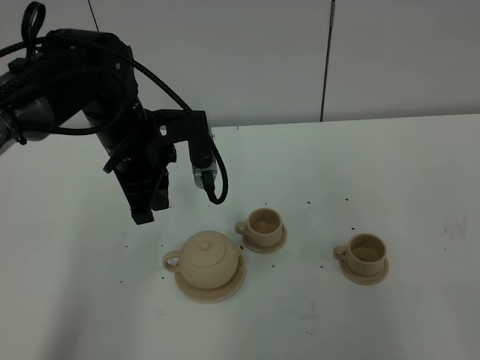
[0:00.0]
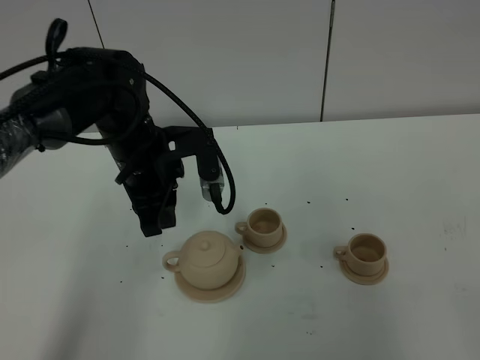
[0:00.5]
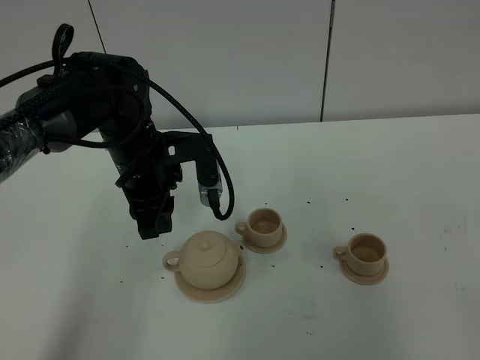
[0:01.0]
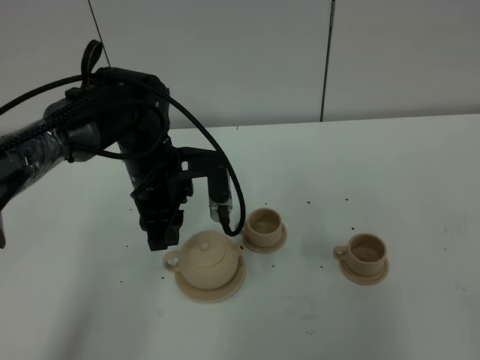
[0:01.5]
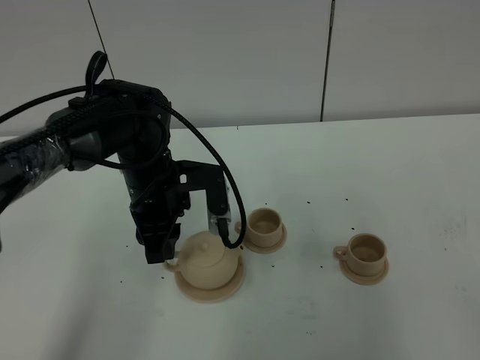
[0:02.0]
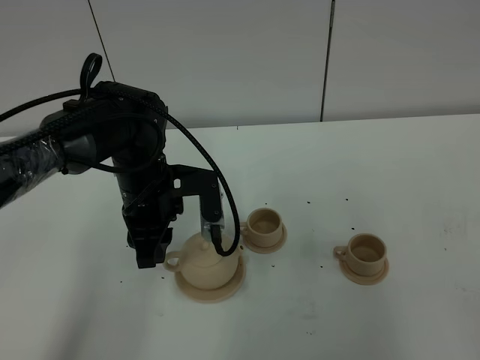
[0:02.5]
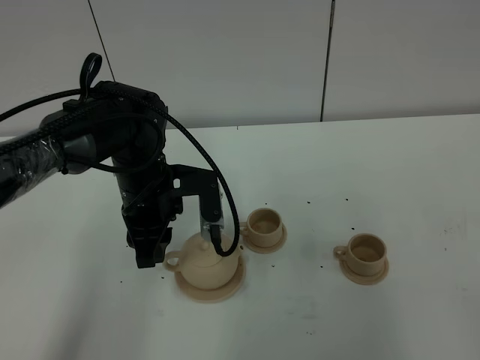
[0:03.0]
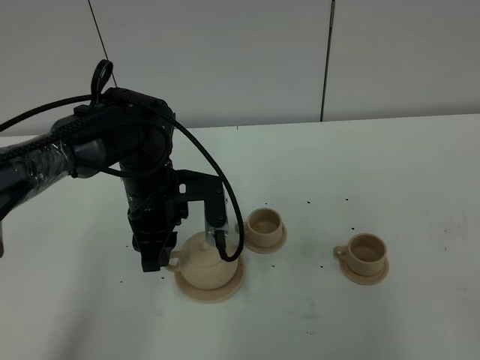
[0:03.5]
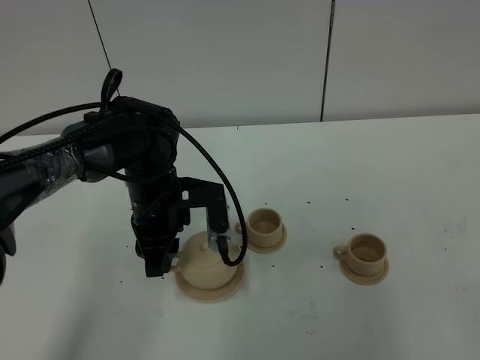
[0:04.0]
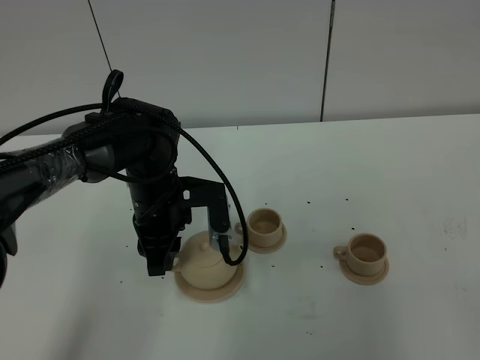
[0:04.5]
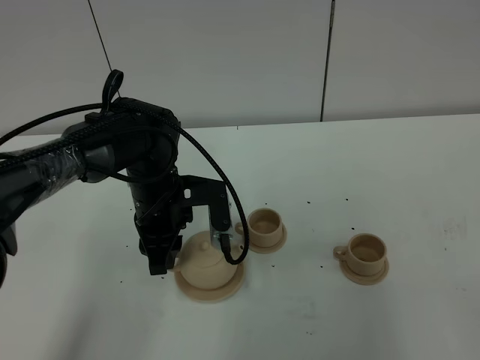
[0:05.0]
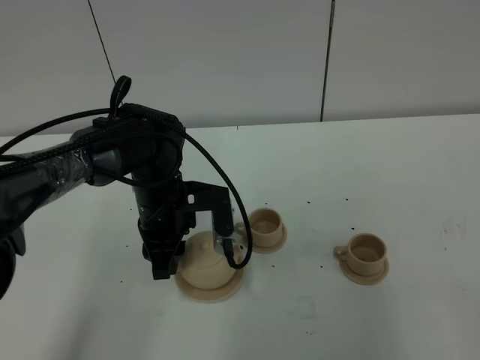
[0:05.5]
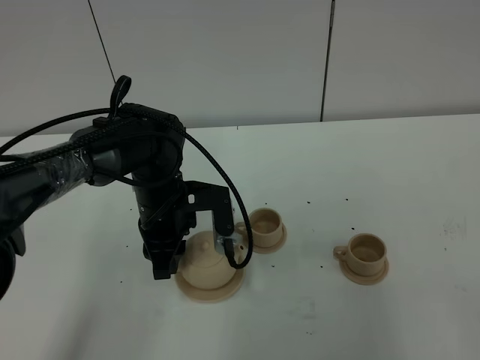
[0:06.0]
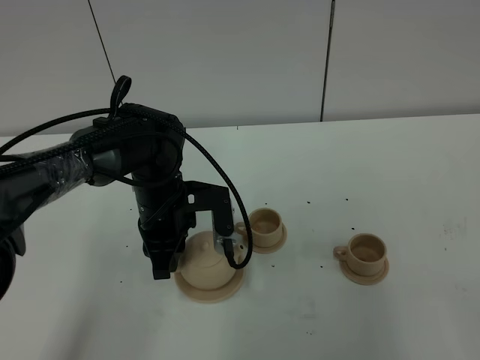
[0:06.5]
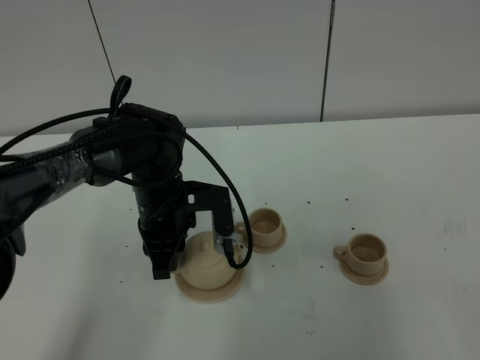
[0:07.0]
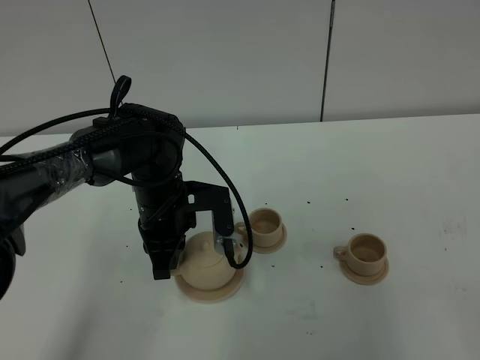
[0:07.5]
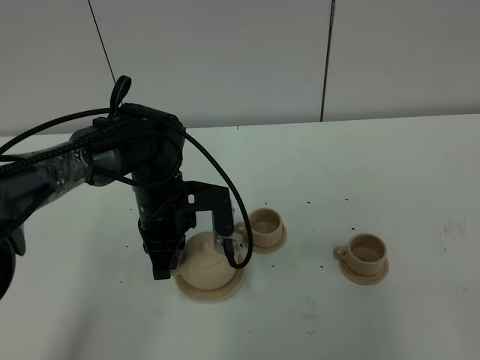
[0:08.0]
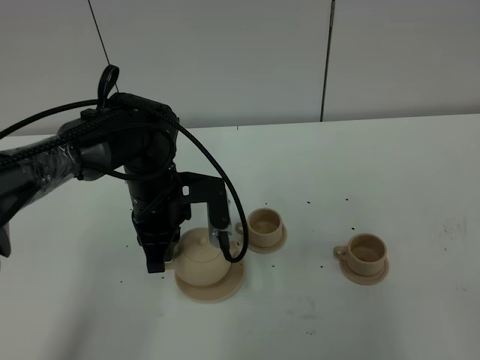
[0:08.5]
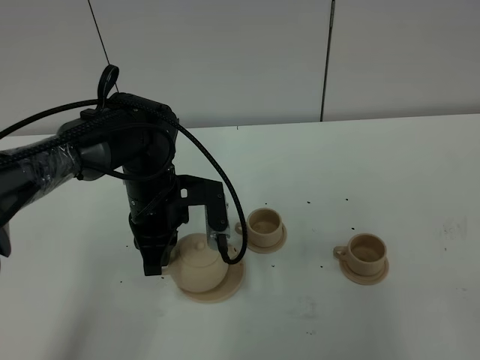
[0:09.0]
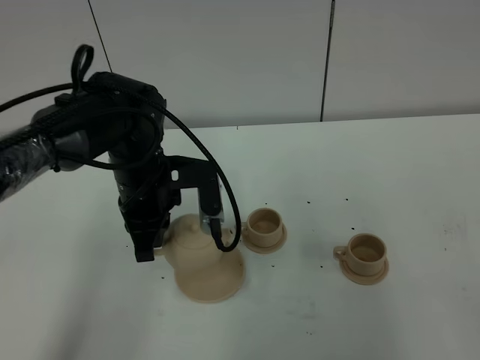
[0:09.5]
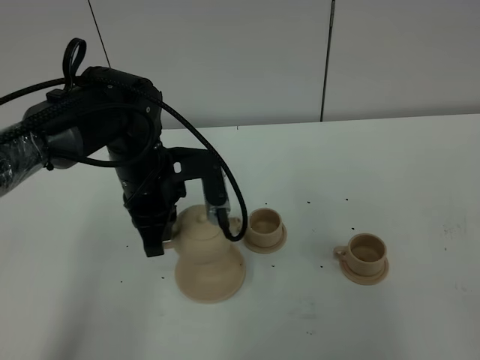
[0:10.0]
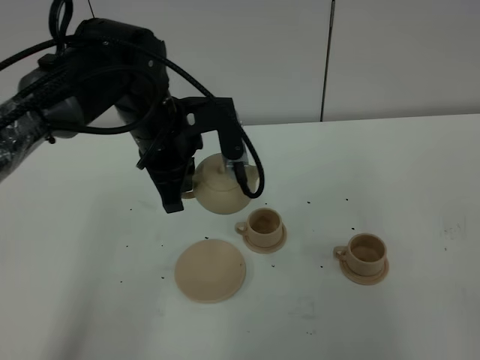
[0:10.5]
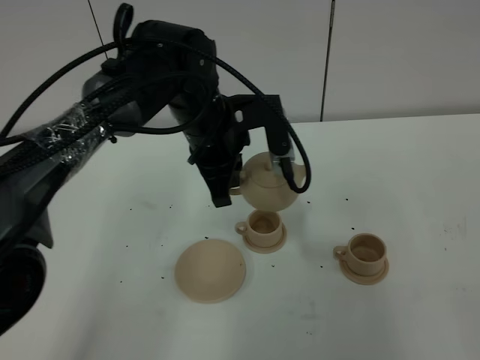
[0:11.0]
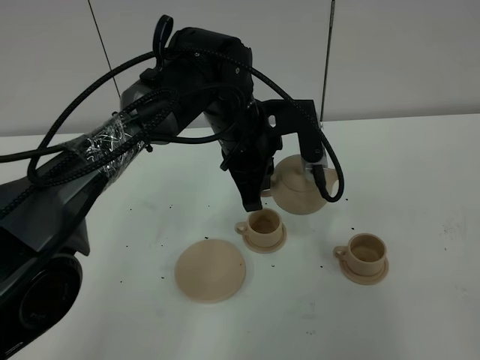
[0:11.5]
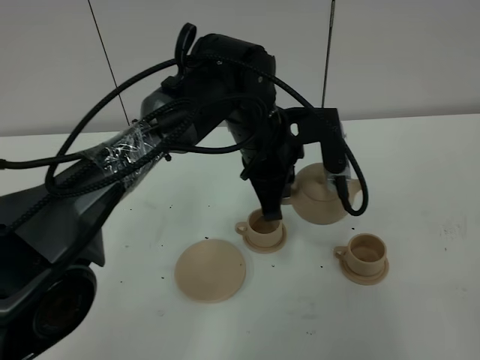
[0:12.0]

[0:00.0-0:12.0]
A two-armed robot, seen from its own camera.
Task of the whole recording: grasp the brown teapot and pour the tea into the two brown teacups one by one, put the brown teapot back in its original place.
Step, 0:00.0 to 0:09.5: Pick up the teapot with the left gripper.
0:00.0 to 0:02.0: The left gripper goes approximately 5 cm downward, and opens its fingers.
0:02.0 to 0:04.0: The grippers stay close to where they were, moving slightly.
0:04.0 to 0:06.0: The two grippers keep their place.
0:08.0 to 0:10.0: The left gripper travels upward by some 5 cm.
0:10.0 to 0:12.0: The left gripper goes some 15 cm to the right.

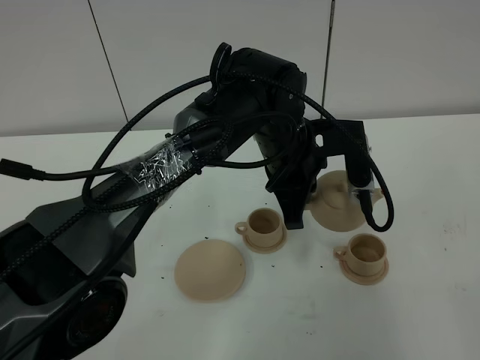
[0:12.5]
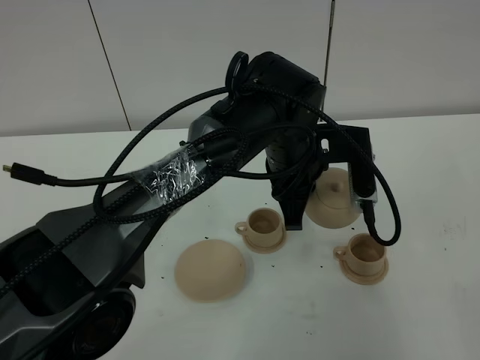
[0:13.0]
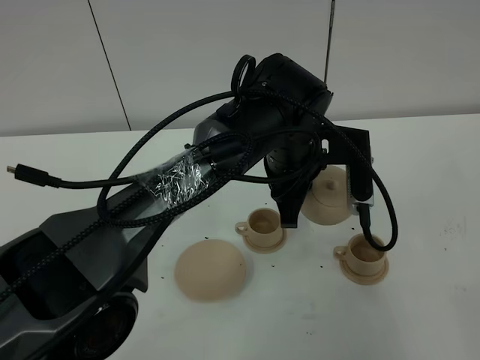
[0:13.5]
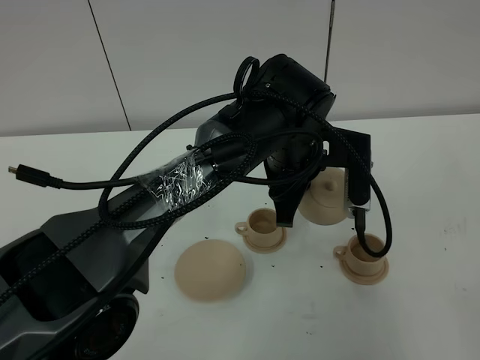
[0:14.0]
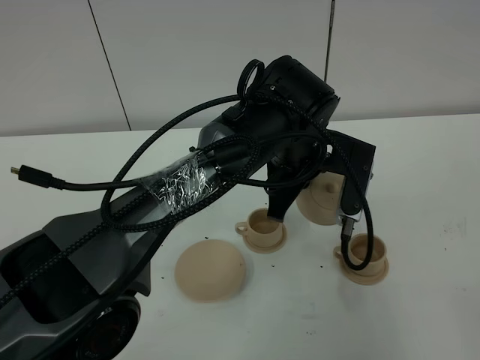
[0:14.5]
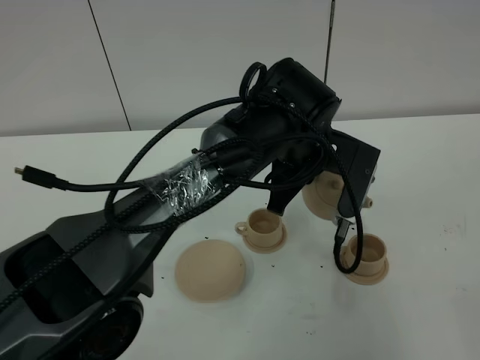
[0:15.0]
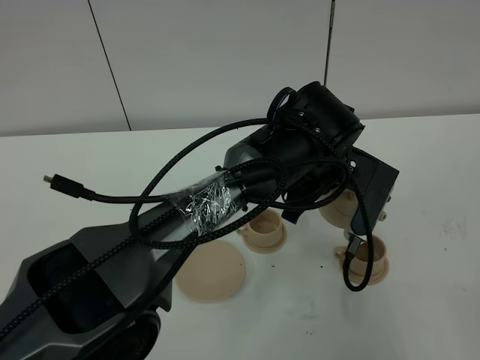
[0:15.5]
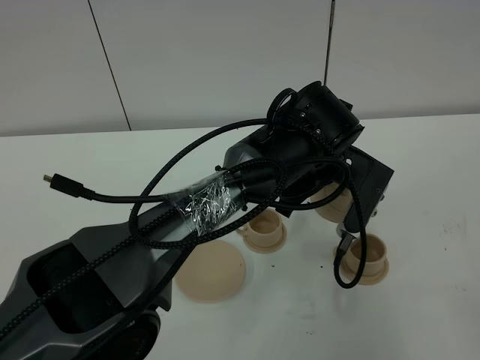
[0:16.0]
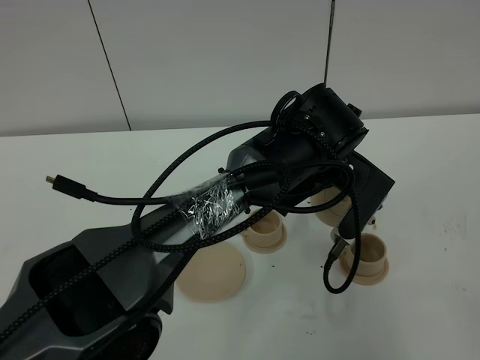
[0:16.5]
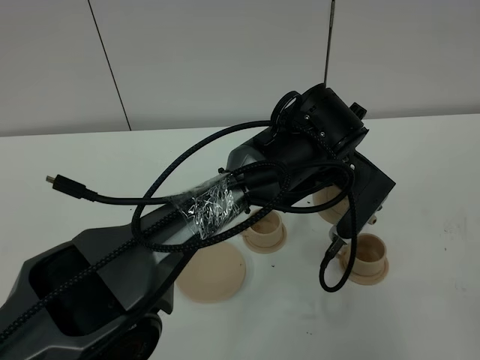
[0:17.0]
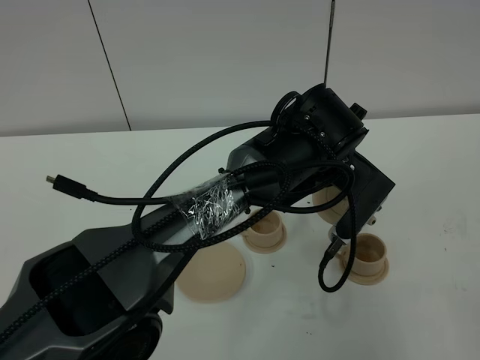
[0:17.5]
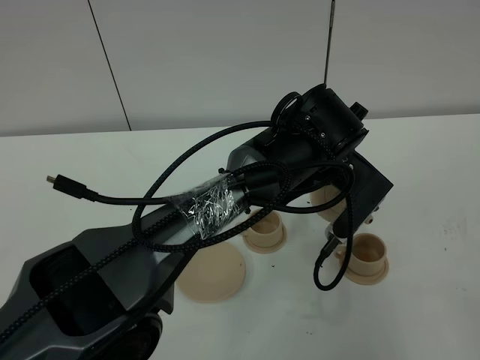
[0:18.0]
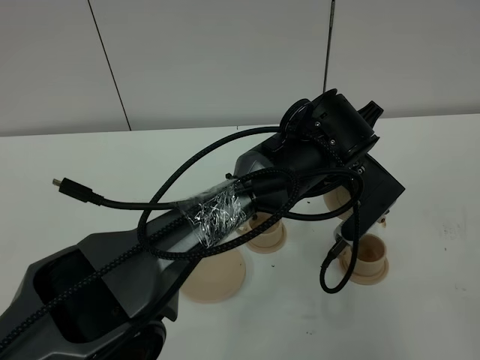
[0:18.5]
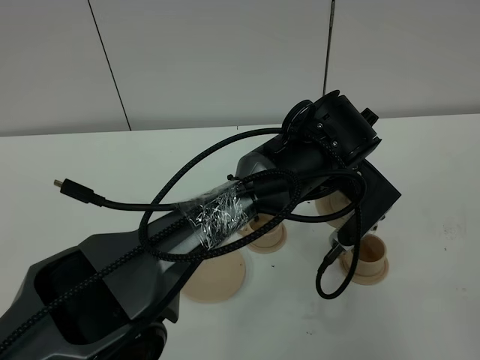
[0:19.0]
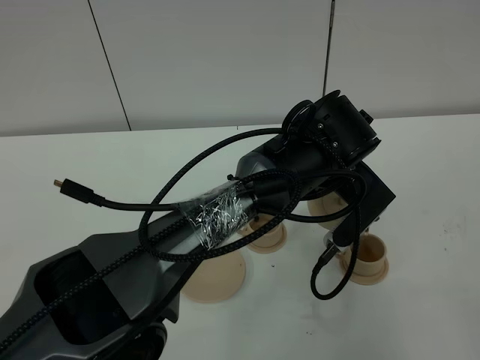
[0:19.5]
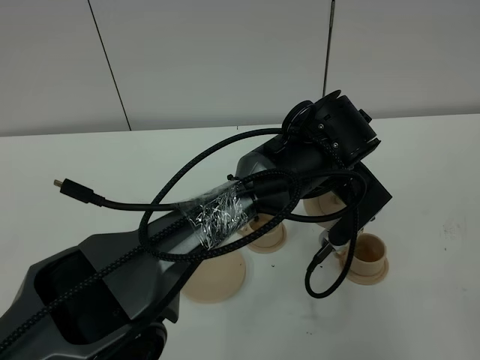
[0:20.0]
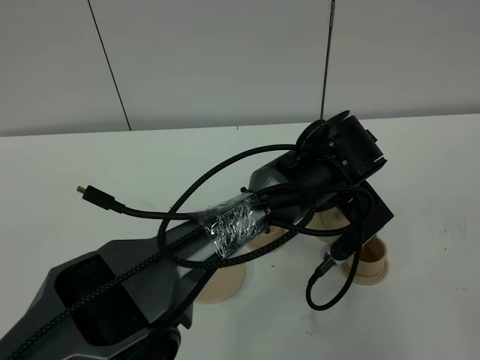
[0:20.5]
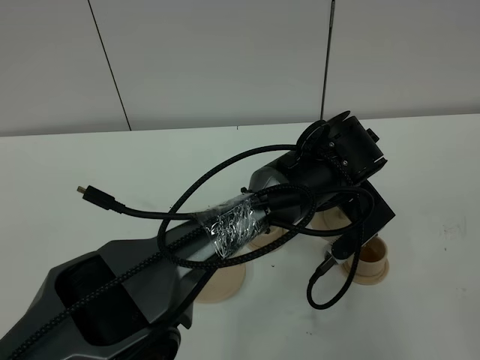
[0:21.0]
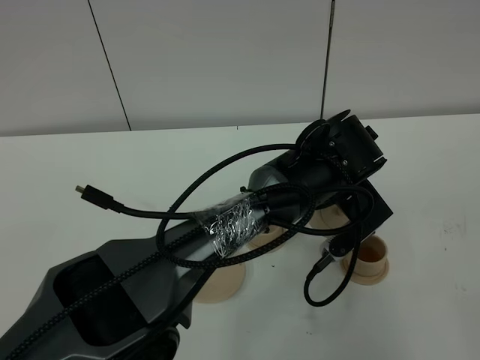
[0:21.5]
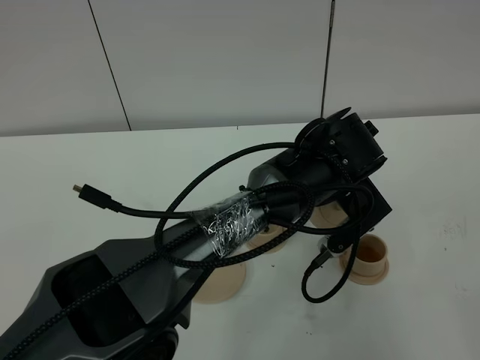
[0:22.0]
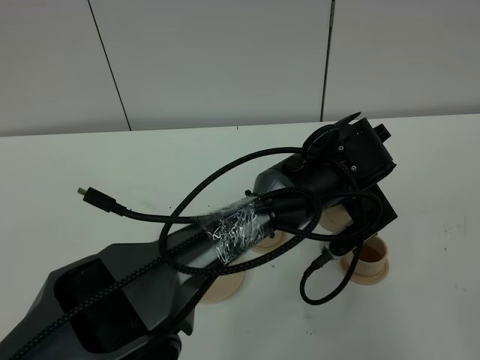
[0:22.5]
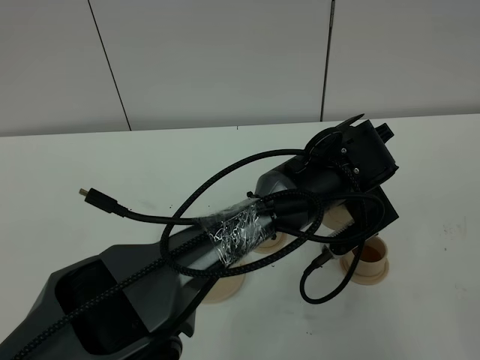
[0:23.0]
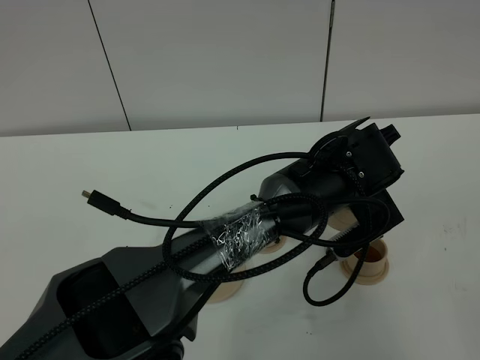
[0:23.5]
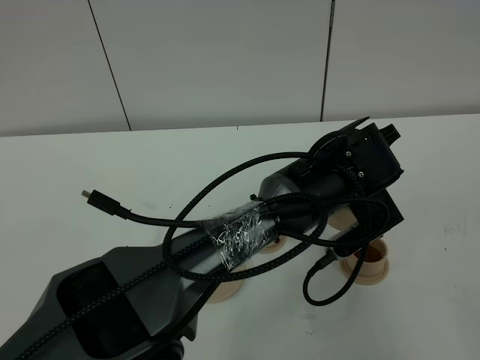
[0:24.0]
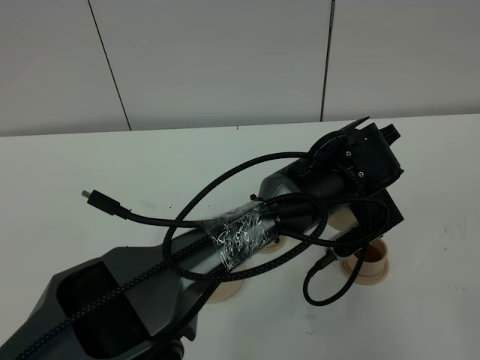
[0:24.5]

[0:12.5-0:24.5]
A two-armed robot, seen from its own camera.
Task of the whole recording: grasp the brown teapot and pour the tea into the two brown teacups one by one, put the brown teapot back in its original place.
0:16.5 to 0:20.5: The grippers make only small movements.
0:20.5 to 0:22.5: The grippers move only a little.
0:22.5 to 0:24.5: The two grippers keep their place.

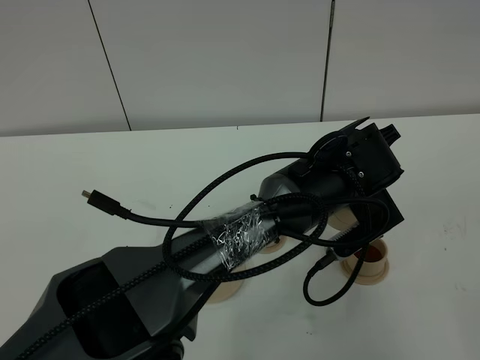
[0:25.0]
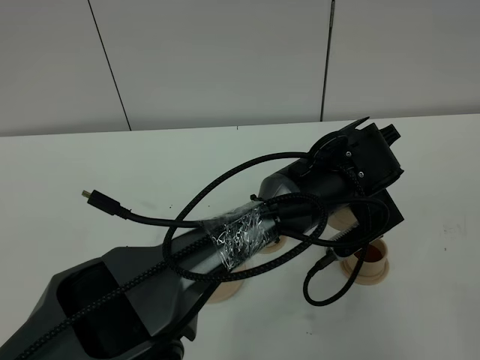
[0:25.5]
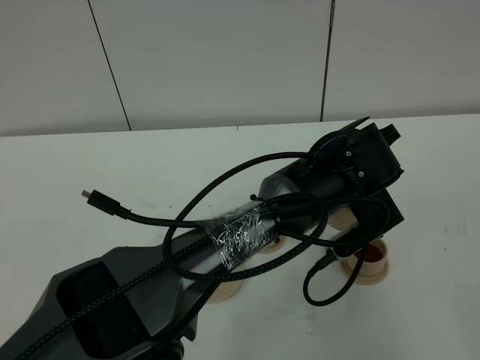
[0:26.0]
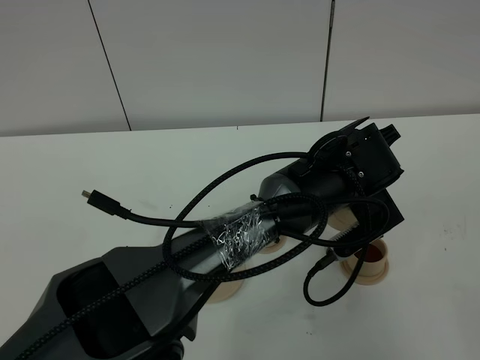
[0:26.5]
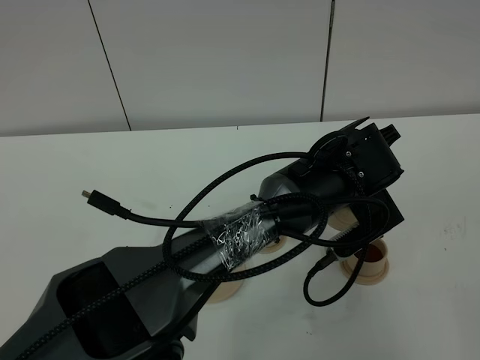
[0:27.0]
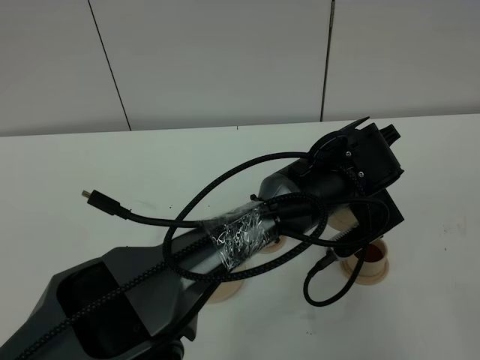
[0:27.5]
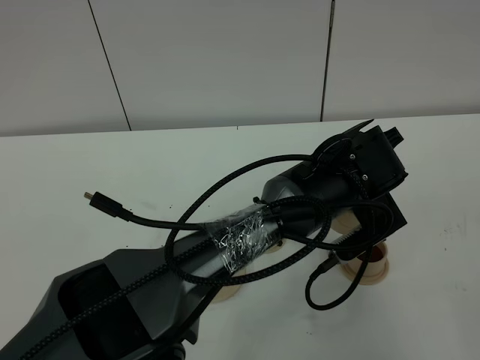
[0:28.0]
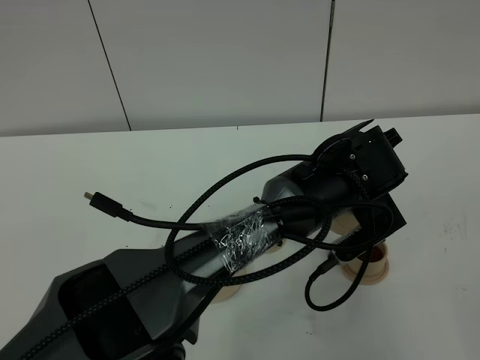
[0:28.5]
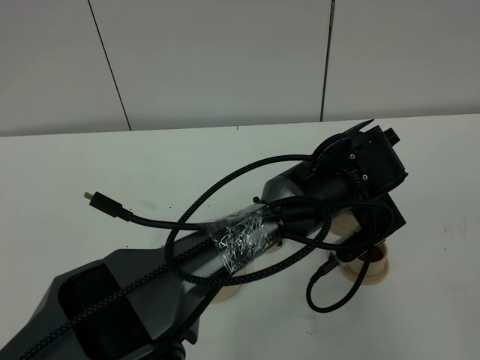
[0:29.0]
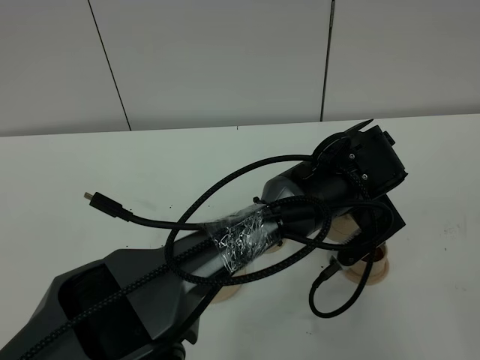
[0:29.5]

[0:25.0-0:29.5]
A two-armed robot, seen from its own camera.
Task of the whole recording: grasp the brown teapot and pour the tea into the two brown teacups one by one, put the brown teapot back in its original place.
0:25.0 to 0:27.0: The two grippers keep their place.
0:27.0 to 0:29.5: The grippers move only a little.
